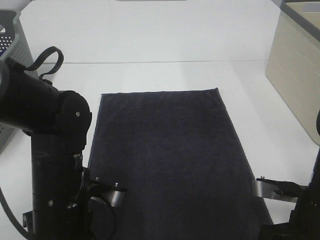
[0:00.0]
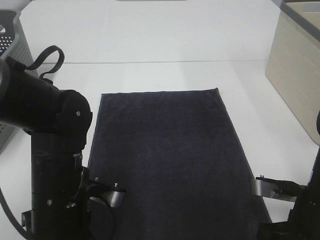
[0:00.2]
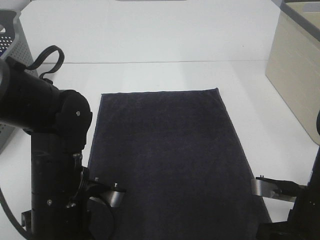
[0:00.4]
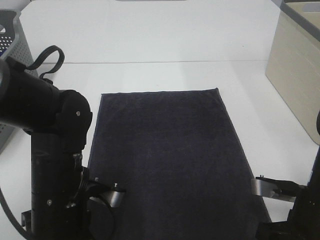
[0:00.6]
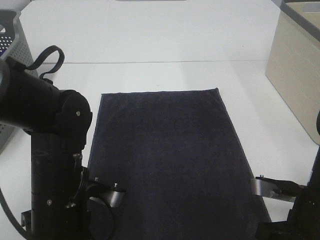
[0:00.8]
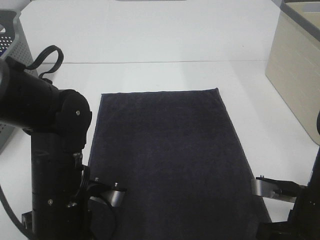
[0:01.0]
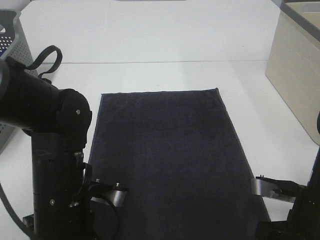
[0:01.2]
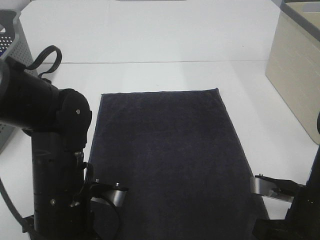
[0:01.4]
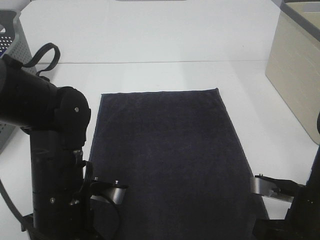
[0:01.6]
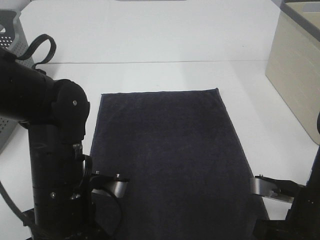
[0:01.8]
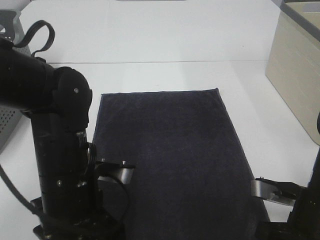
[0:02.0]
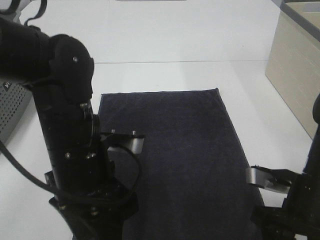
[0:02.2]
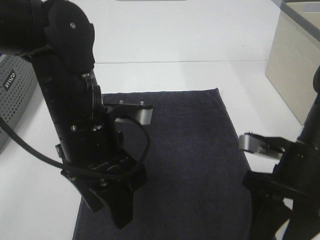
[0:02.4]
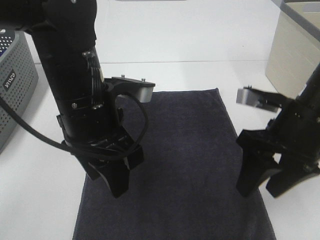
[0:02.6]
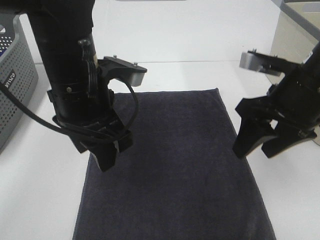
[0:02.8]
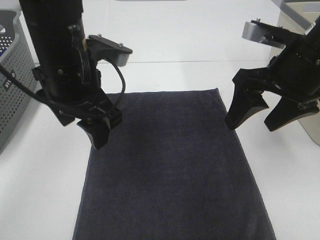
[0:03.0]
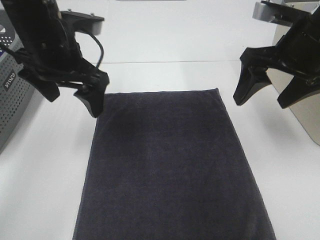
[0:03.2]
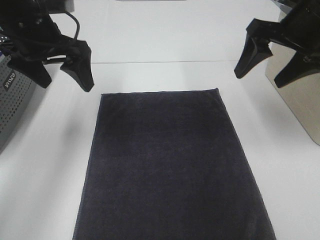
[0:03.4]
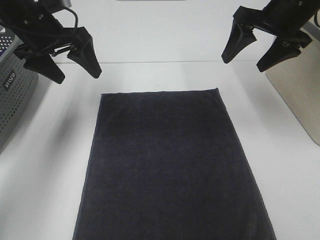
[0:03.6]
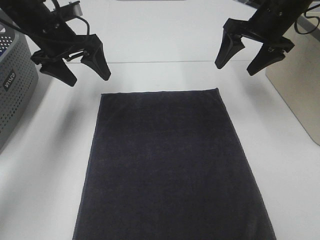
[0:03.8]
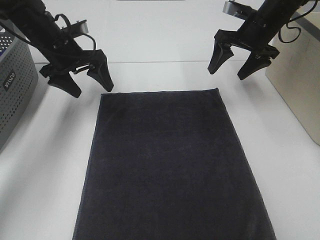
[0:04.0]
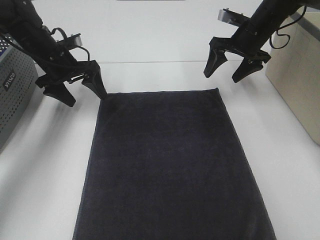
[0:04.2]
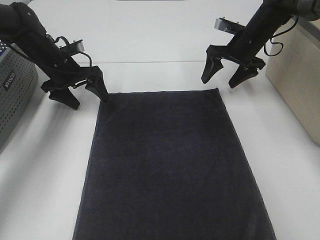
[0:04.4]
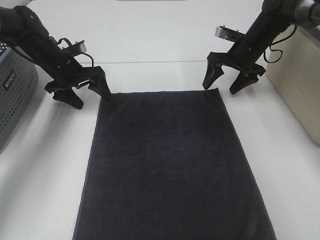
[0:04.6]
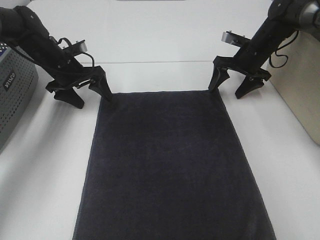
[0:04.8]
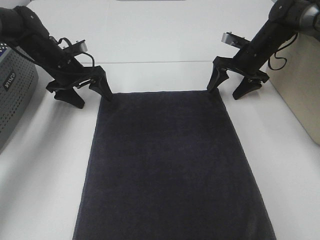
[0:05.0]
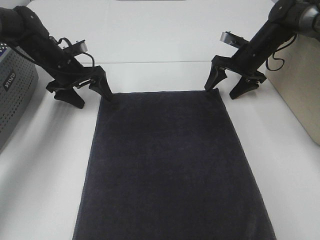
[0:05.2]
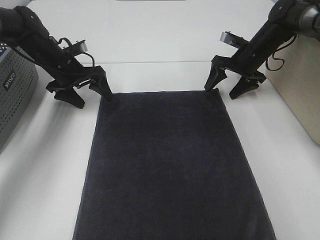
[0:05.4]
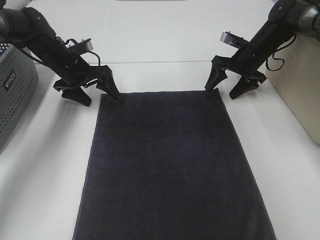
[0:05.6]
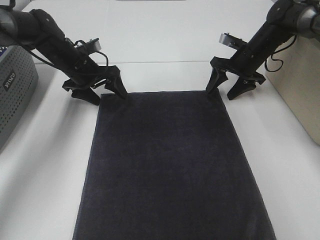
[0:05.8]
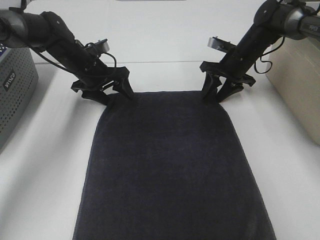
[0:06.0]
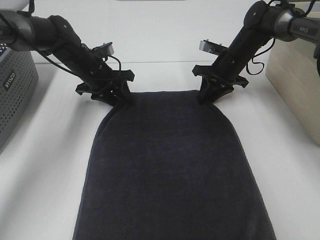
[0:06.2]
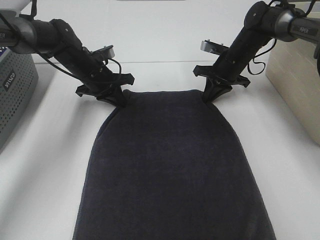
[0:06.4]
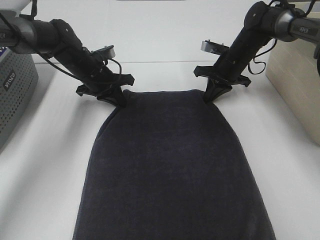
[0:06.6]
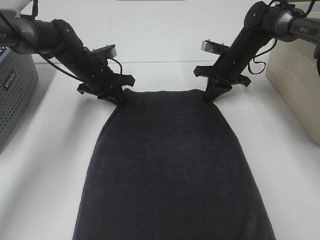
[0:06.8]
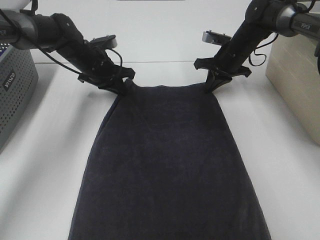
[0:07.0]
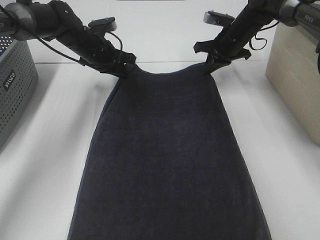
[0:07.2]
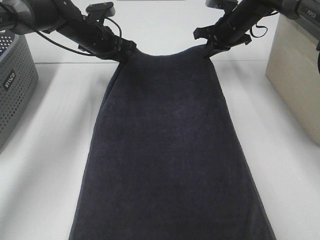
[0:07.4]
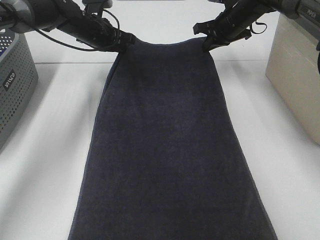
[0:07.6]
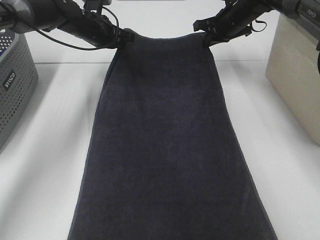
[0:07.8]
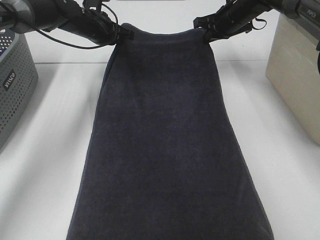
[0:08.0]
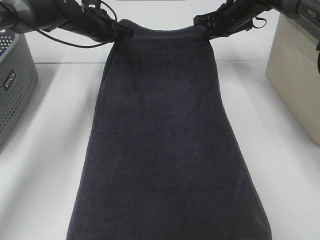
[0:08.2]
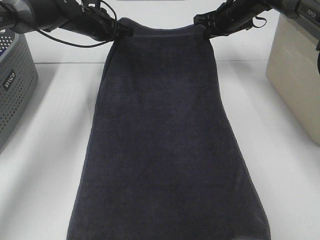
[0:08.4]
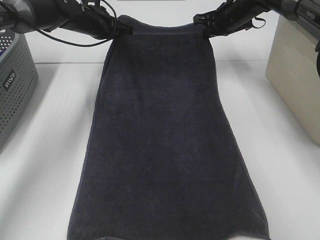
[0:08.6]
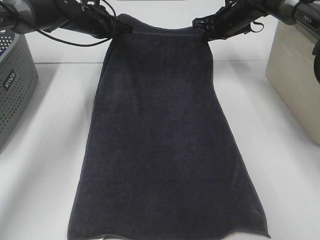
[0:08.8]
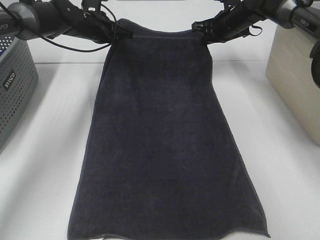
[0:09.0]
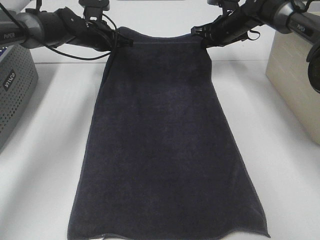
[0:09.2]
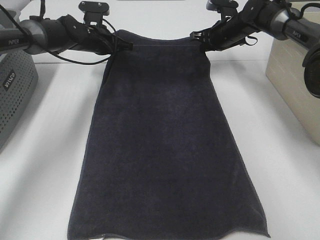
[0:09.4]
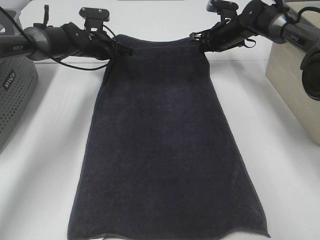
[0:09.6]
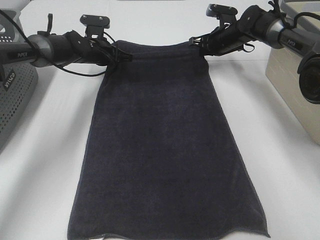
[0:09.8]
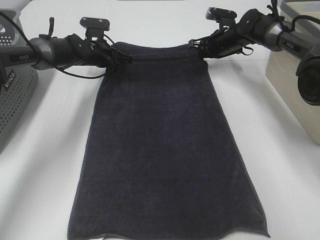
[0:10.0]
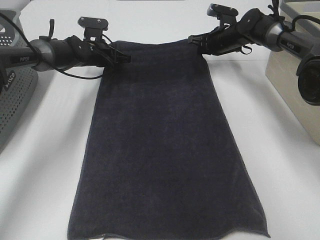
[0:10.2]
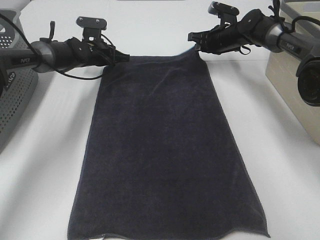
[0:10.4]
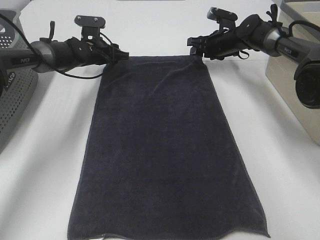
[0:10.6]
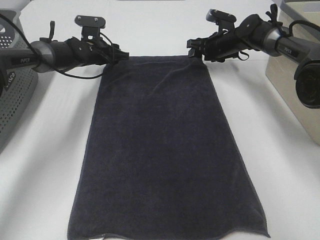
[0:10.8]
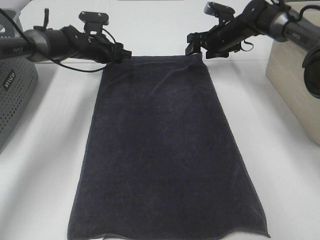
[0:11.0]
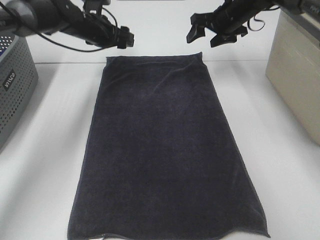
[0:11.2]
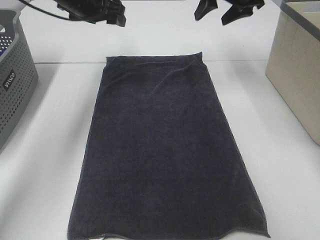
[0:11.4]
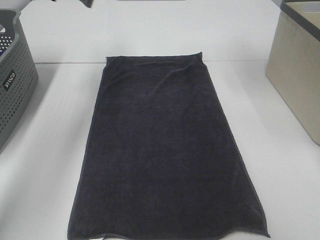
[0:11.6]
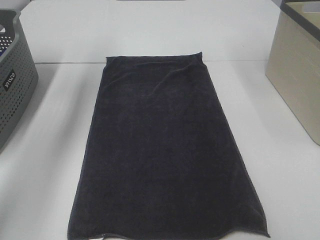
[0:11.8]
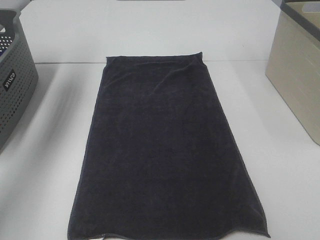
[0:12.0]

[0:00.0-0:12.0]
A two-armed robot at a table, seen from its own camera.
Task of the whole recording: Remove the towel and place it.
Step, 0:00.0 to 0:04.0: Left hand:adjust the gray towel.
Step, 0:00.0 to 0:04.0: Right hand:adjust the gray towel.
0:00.0 to 0:01.6: The left gripper opens up; the right gripper opens.
0:01.6 to 0:03.0: Both grippers move upward and forward, approximately 20 cm.
0:03.0 to 0:04.4: The left gripper heads forward, downward and to the left, covering some 25 cm. The right gripper moves forward and downward, roughly 25 cm.
0:04.4 to 0:06.0: The left gripper shifts some 5 cm to the right, while the right gripper closes.
0:06.0 to 0:07.6: The right gripper shifts some 5 cm upward, and closes; the left gripper goes roughly 10 cm upward and forward, and closes up.
0:07.6 to 0:09.0: The grippers make only small movements.
0:09.0 to 0:10.4: The grippers both shift downward by approximately 5 cm. The right gripper opens.
0:10.4 to 0:12.0: The left gripper is displaced upward, backward and to the left by roughly 35 cm, and opens, while the right gripper travels upward and backward by about 35 cm, and opens up.

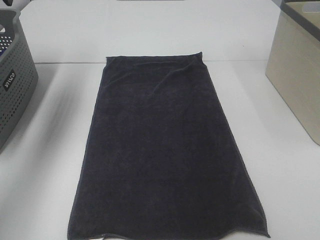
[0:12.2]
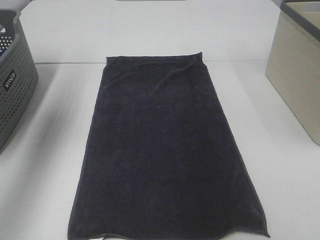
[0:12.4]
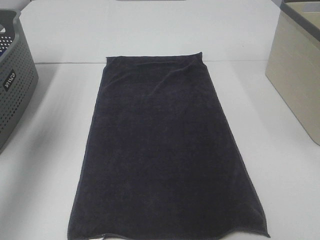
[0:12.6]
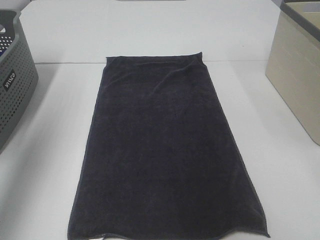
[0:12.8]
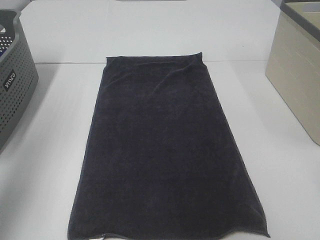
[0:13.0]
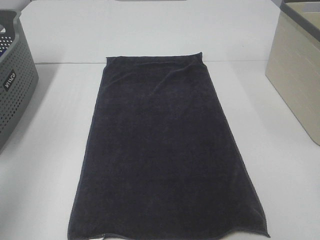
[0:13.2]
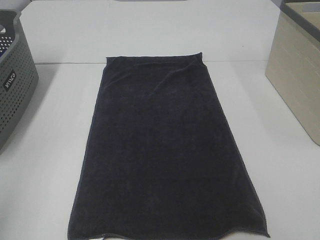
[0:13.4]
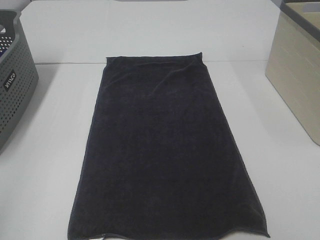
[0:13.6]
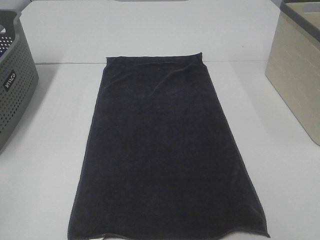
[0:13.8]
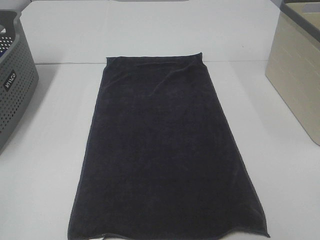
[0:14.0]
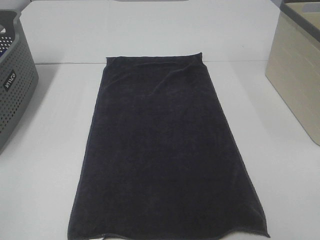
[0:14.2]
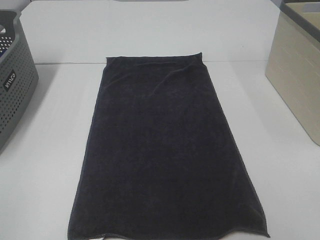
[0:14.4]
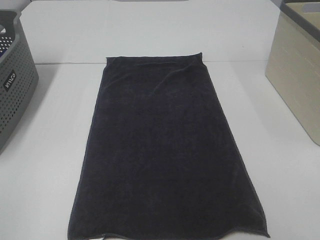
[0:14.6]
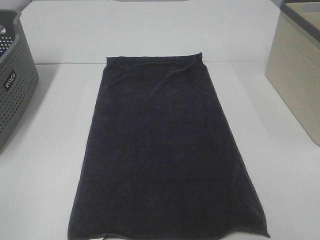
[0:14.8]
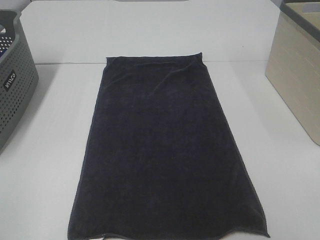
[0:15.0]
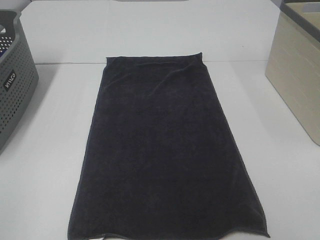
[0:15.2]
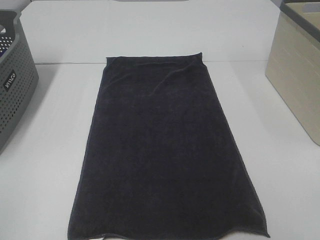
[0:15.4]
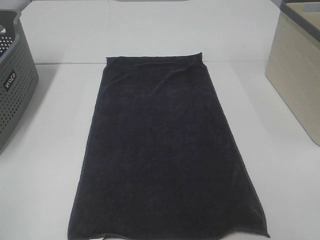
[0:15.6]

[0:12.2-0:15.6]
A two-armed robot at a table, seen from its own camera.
Task of the whole recording: Remove the towel and place it.
0:12.2 to 0:13.8: The left gripper travels backward by some 40 cm.

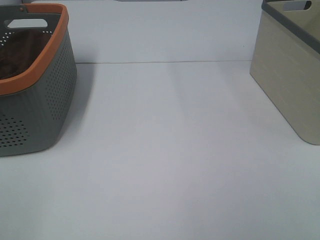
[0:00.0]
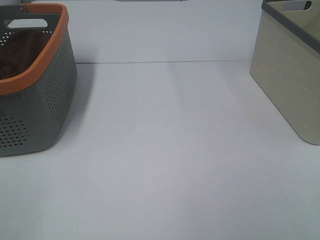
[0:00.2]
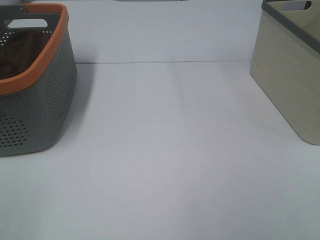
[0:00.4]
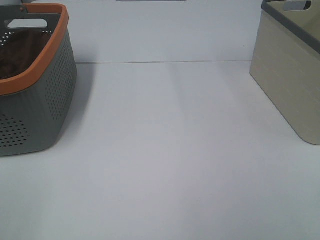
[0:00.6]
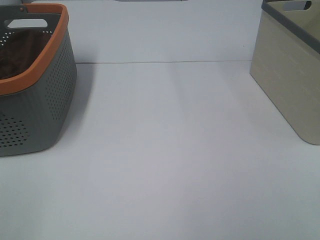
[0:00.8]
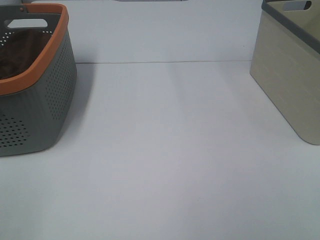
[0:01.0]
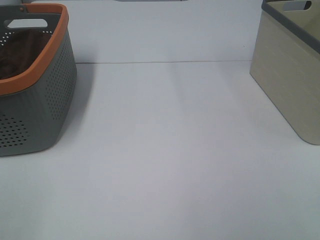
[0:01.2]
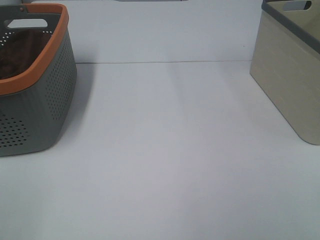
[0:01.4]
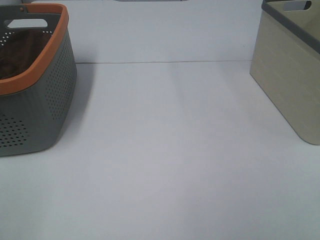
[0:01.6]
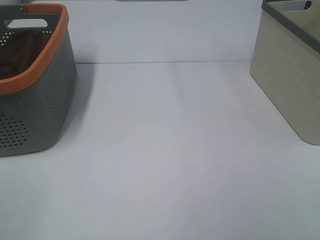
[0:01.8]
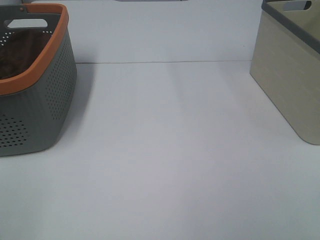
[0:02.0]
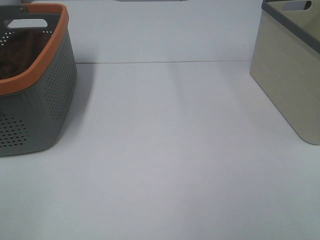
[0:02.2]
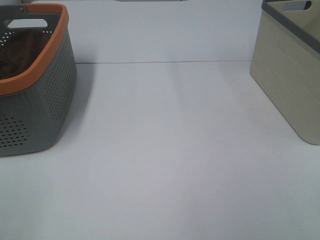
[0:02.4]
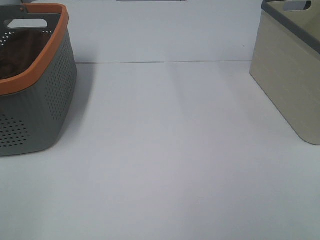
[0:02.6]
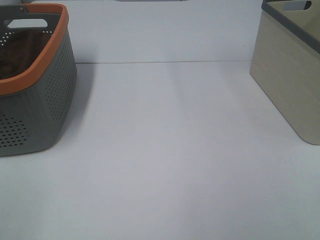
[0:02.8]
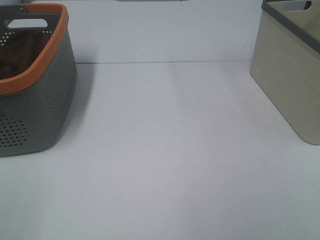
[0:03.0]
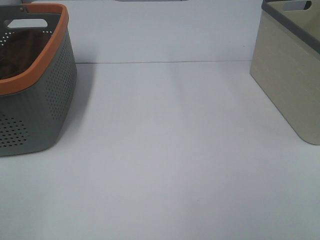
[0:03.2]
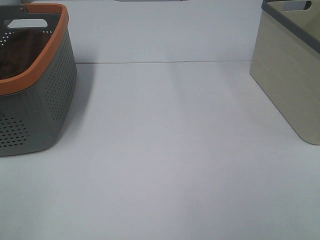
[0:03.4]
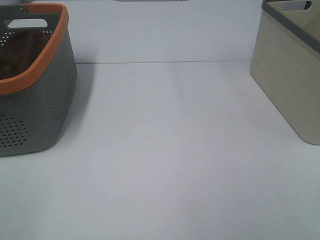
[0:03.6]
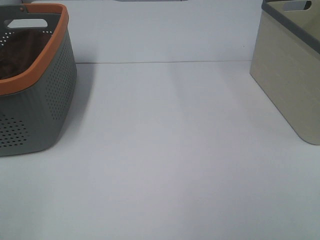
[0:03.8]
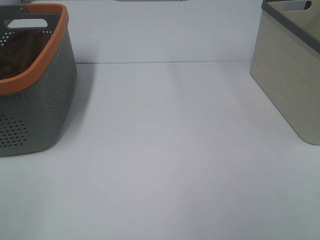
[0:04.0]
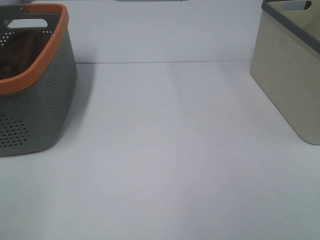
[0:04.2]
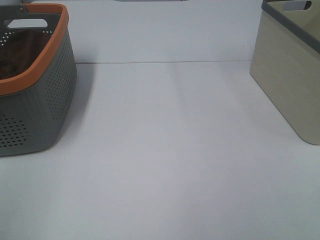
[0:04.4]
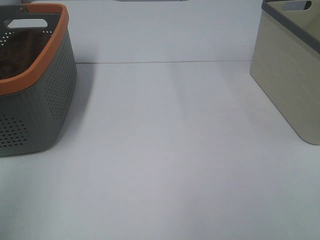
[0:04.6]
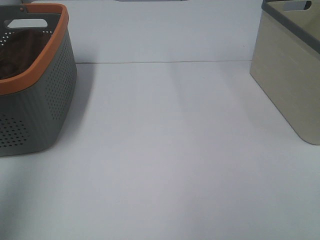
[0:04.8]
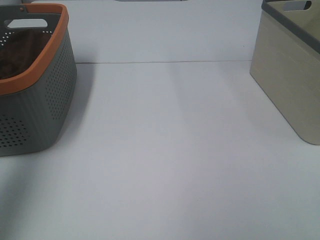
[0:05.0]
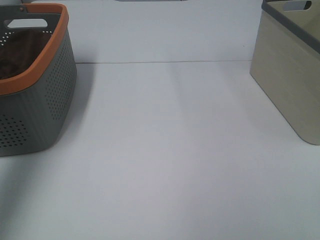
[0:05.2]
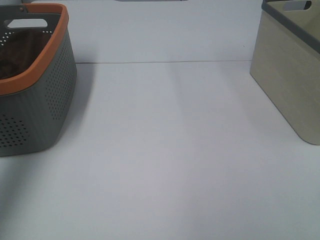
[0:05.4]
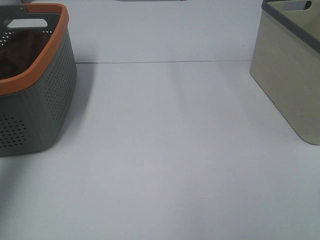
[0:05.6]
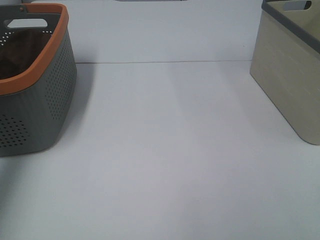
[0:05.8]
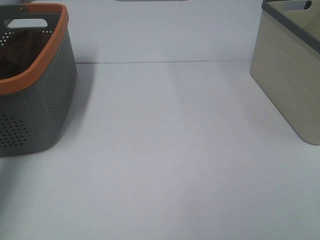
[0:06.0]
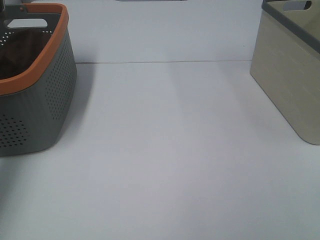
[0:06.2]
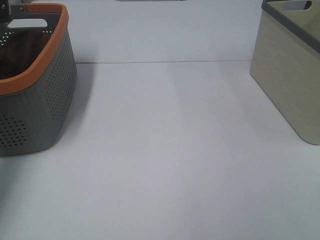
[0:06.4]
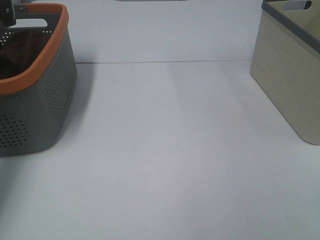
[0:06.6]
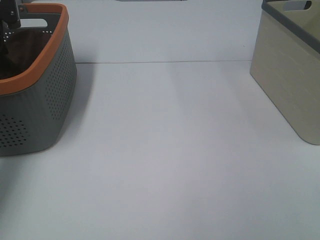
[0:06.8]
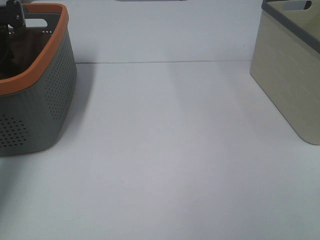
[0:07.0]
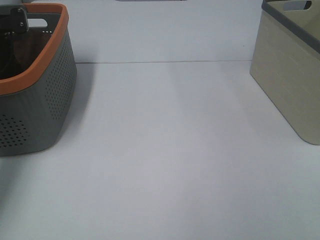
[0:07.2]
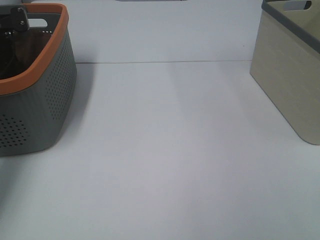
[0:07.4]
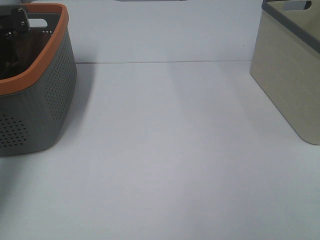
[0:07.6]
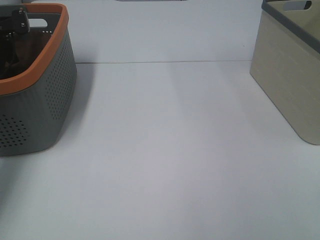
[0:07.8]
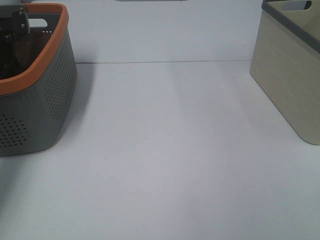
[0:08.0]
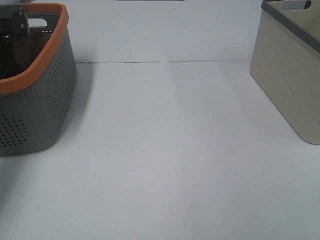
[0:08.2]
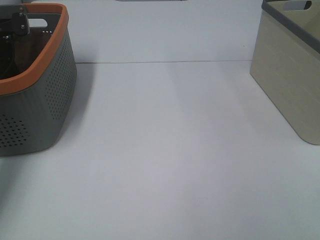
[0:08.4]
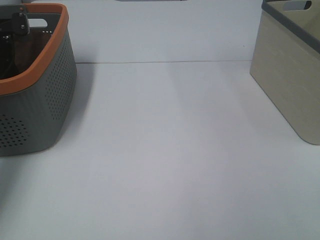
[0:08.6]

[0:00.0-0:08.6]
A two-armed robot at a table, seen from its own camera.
Task of the whole recording: Remove the towel and place it.
0:00.0 to 0:02.8: Neither gripper changes place.
0:04.4 to 0:05.8: The left gripper travels forward by about 40 cm.
